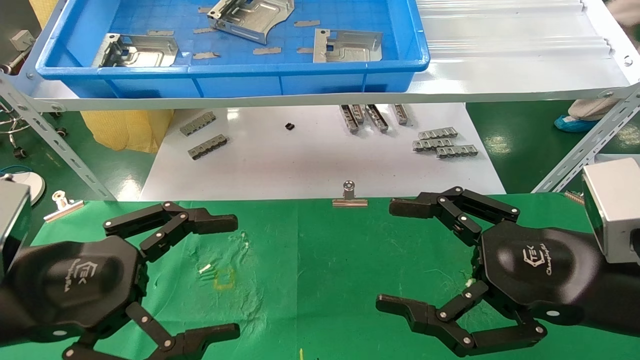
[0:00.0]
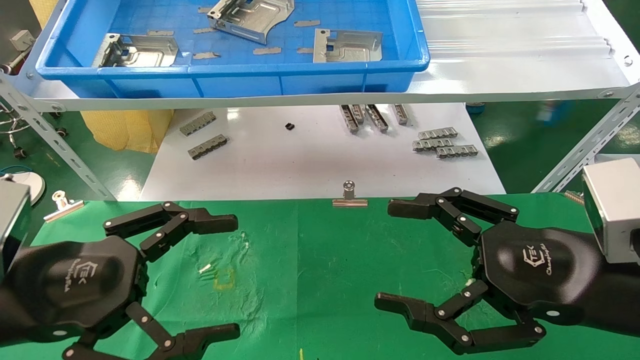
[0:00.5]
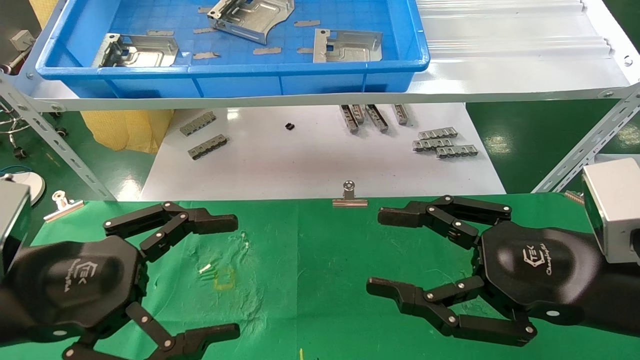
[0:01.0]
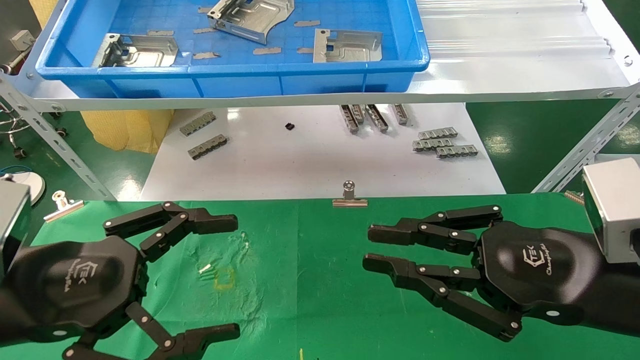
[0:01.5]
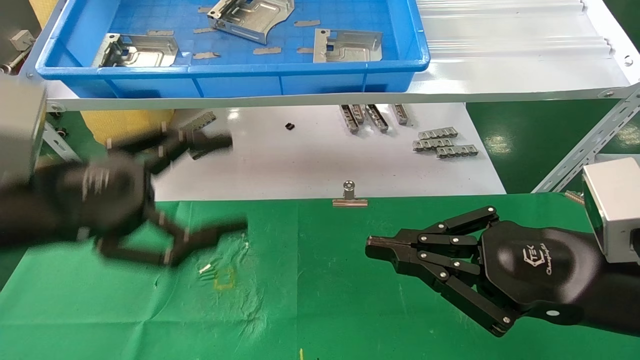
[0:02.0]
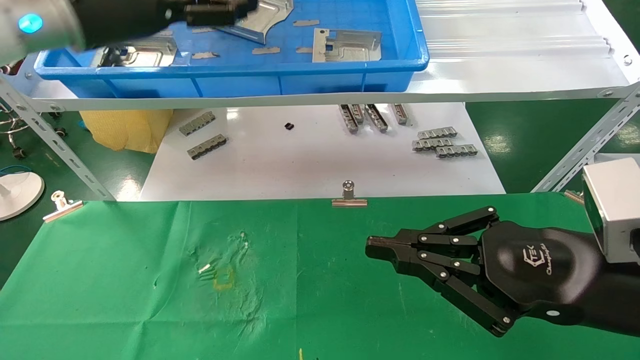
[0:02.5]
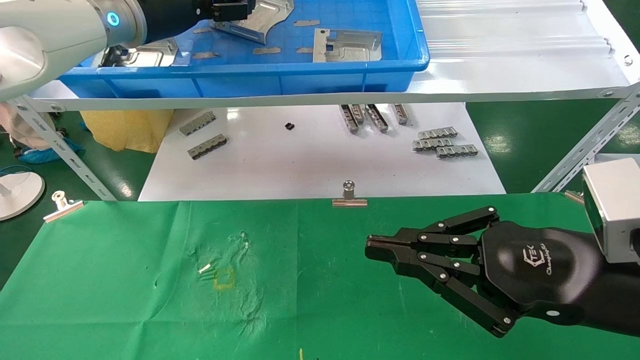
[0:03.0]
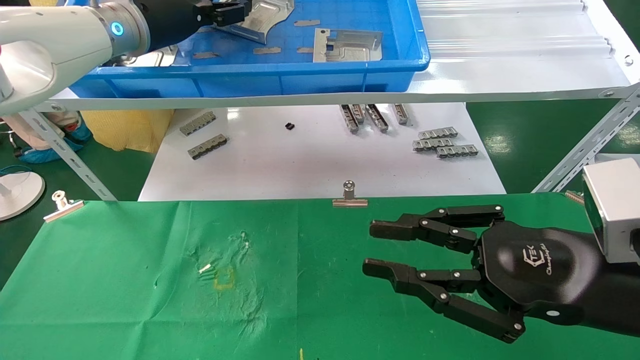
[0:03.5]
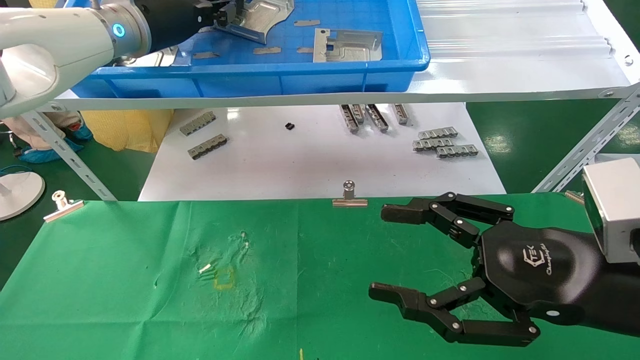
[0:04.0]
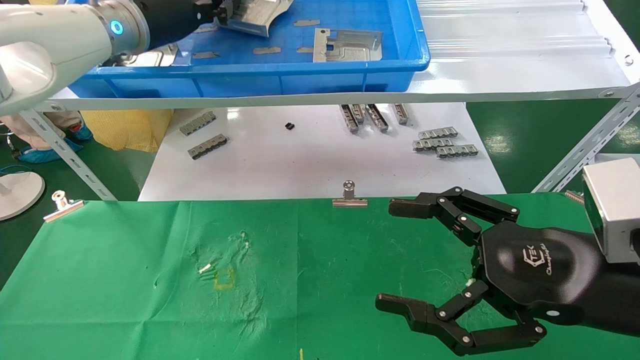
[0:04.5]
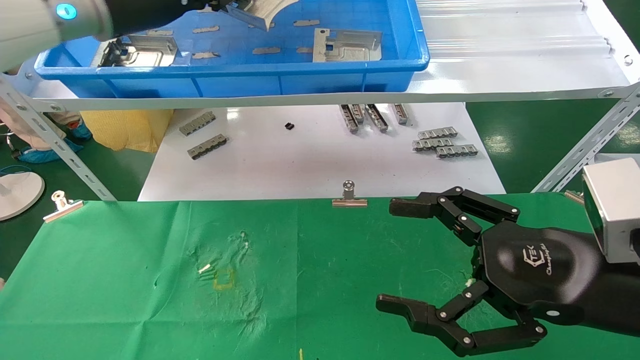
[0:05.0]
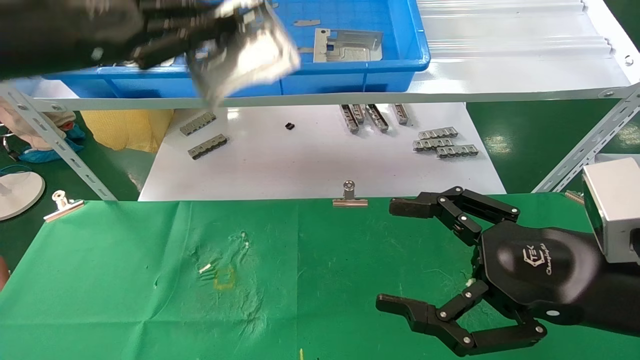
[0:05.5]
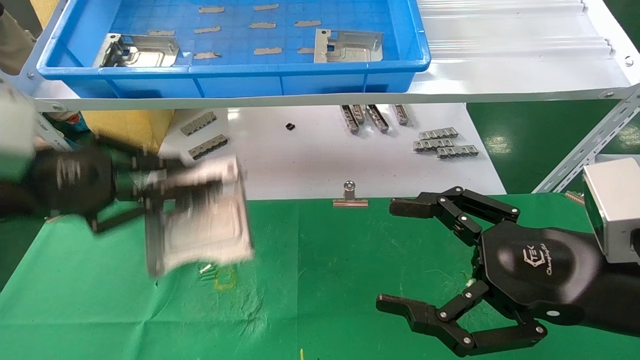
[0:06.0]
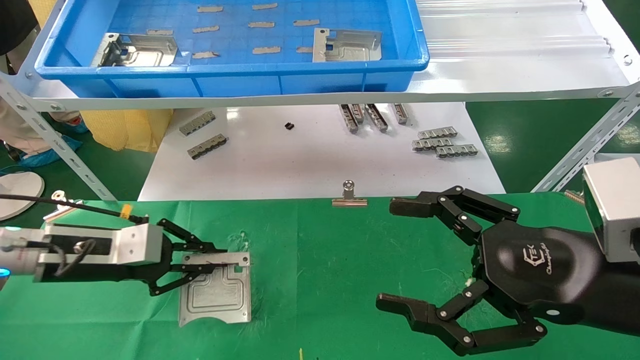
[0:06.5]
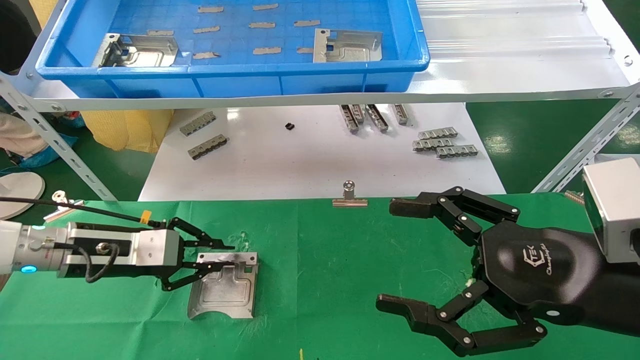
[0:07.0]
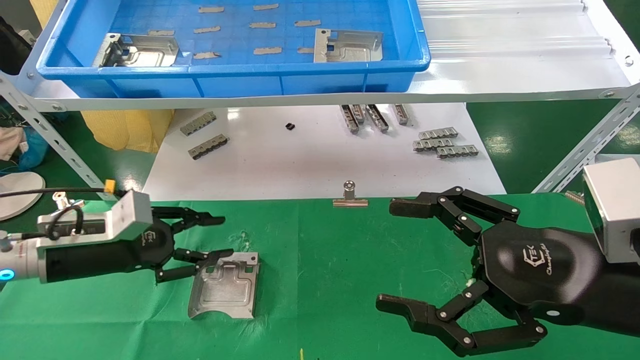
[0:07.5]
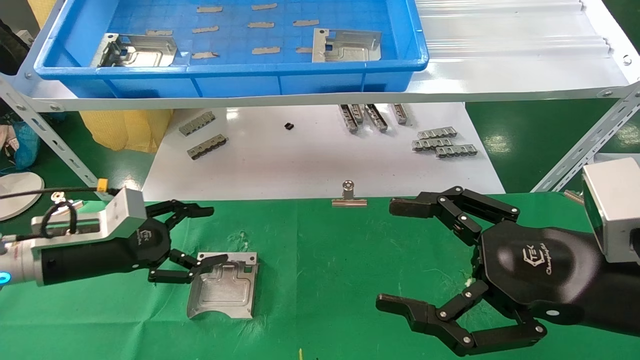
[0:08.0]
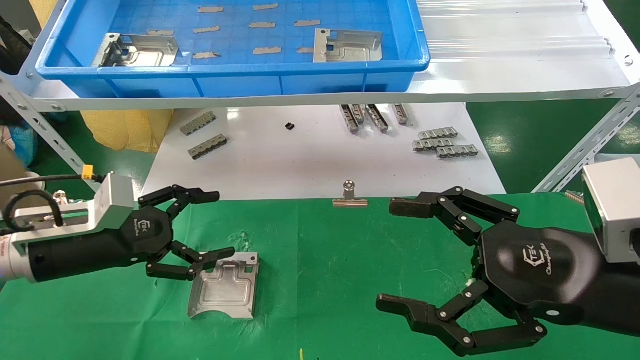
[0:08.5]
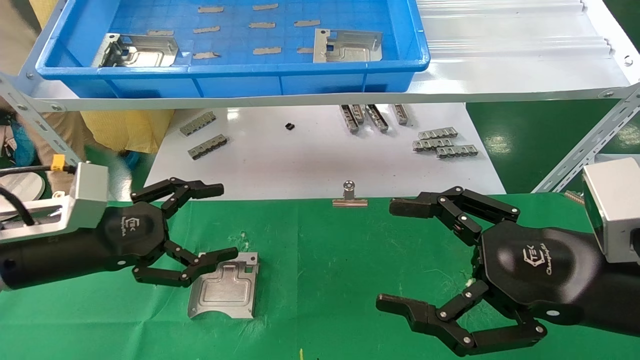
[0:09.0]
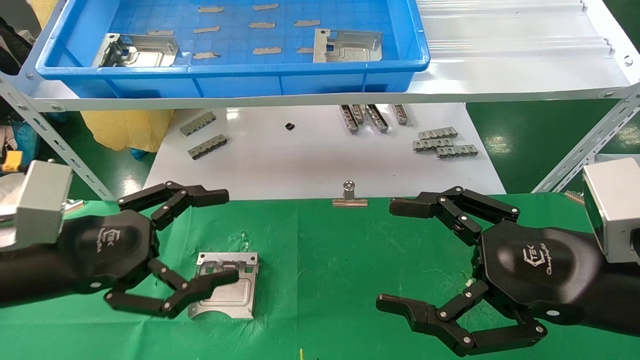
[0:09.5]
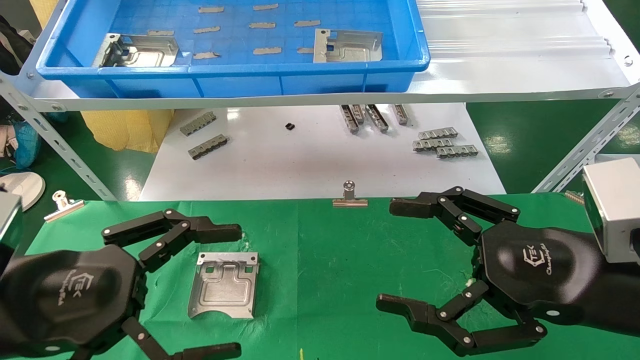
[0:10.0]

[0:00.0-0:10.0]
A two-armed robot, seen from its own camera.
Task of the whole recording: use the mechanical arm to pick up the parts and place them on the table.
Step, 0:02.0 to 0:04.0: Pick up the hard drive bracket from the feeding area.
Step, 0:04.5 to 0:07.5: Place the hard drive bracket into the box.
0:00.0 to 0:02.0: The right gripper closes its fingers. The left gripper moves upward and forward, about 10 cm.
0:02.0 to 0:04.0: The right gripper opens its fingers. The left gripper travels forward and upward by some 25 cm, and closes.
0:04.0 to 0:06.0: The left gripper shifts some 25 cm backward, downward and to the left. The right gripper opens up.
0:06.0 to 0:08.0: The left gripper shifts roughly 15 cm downward and forward, and opens its fingers.
0:08.0 to 0:10.0: The left gripper travels backward by about 15 cm.

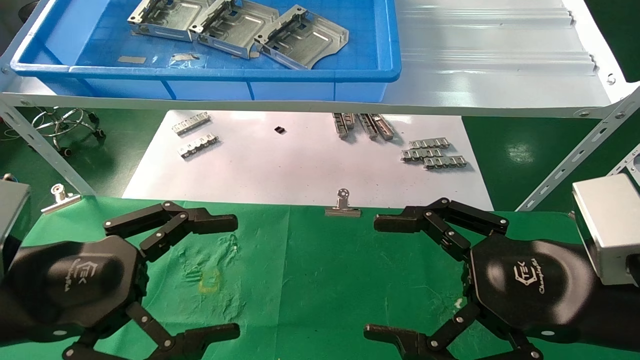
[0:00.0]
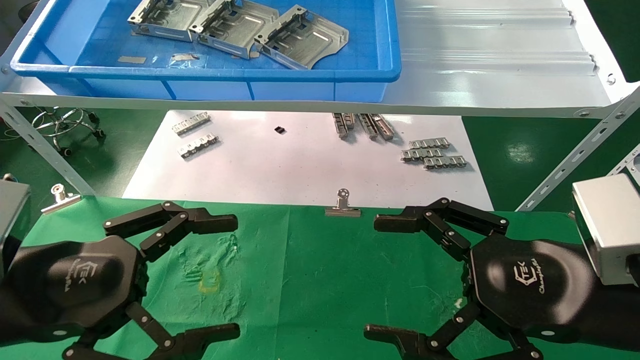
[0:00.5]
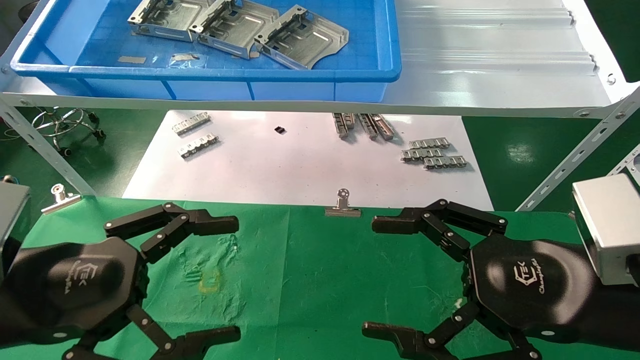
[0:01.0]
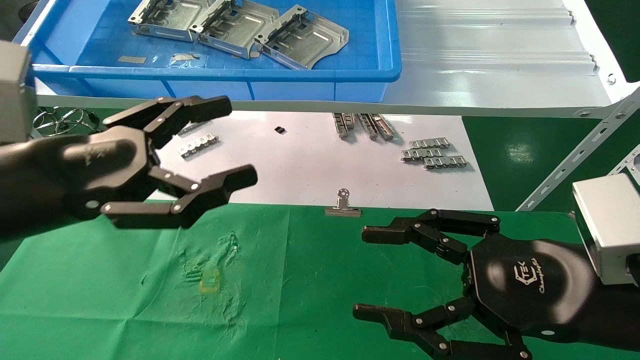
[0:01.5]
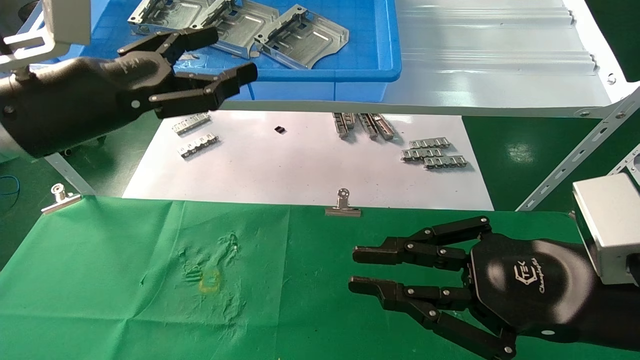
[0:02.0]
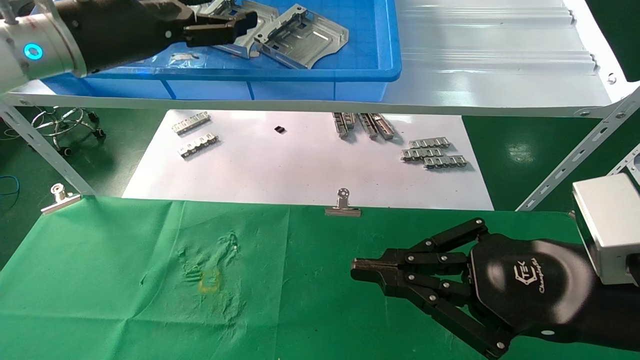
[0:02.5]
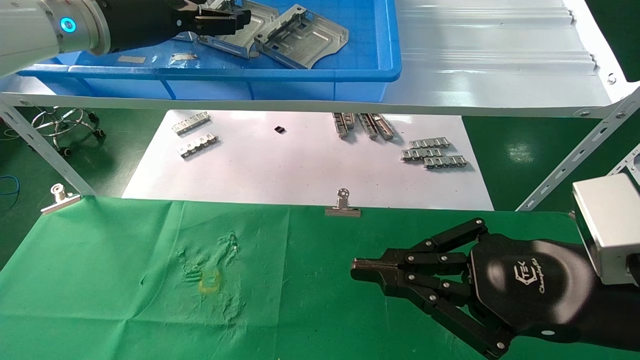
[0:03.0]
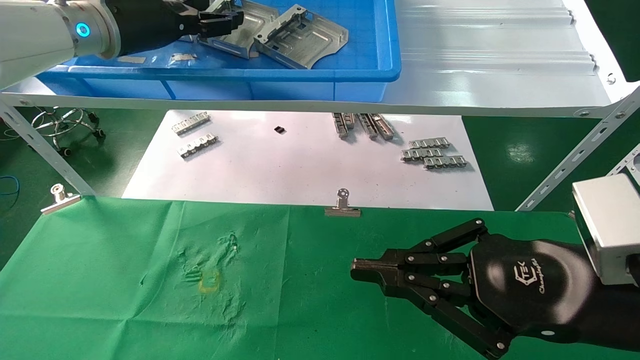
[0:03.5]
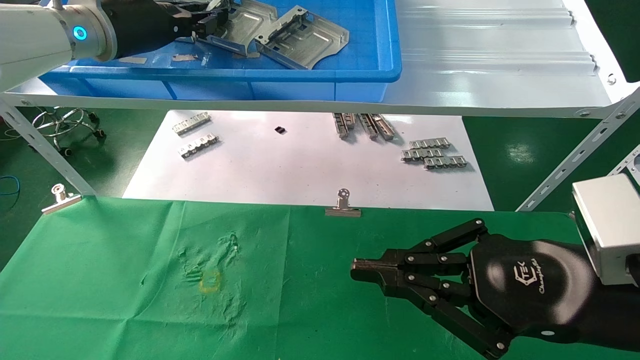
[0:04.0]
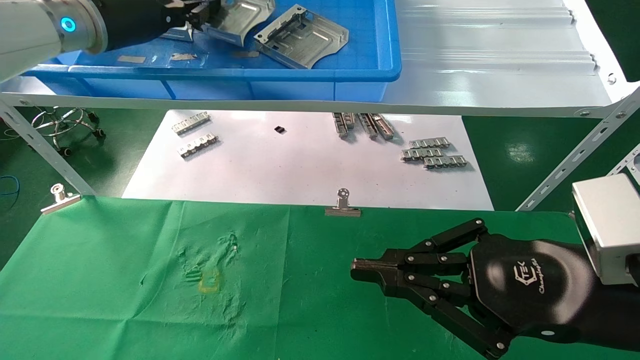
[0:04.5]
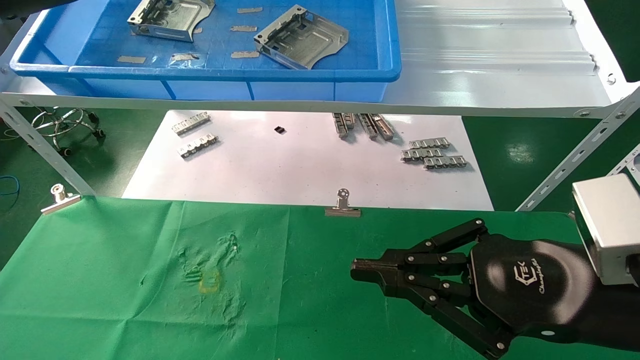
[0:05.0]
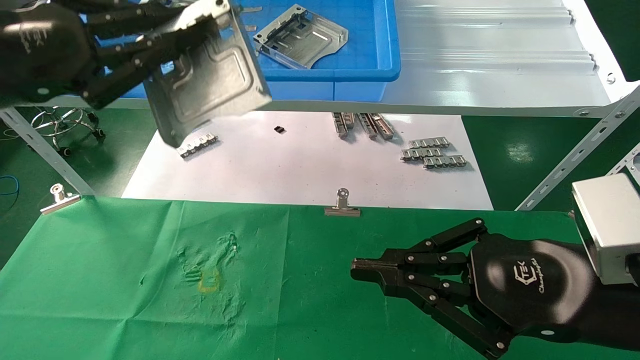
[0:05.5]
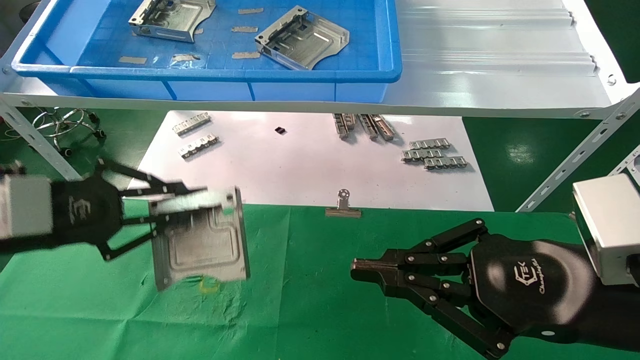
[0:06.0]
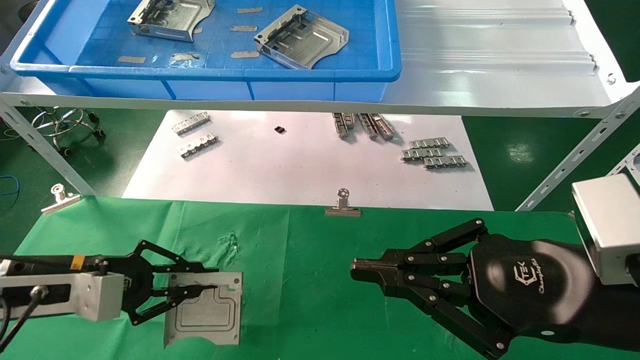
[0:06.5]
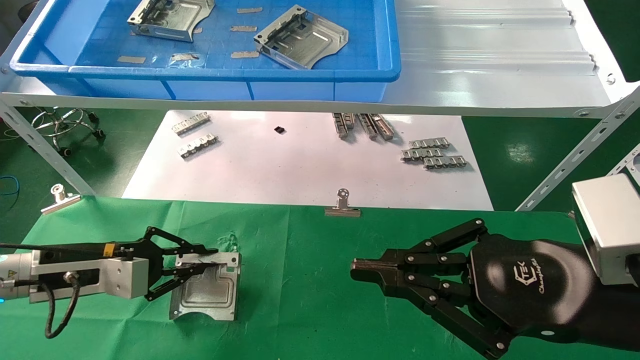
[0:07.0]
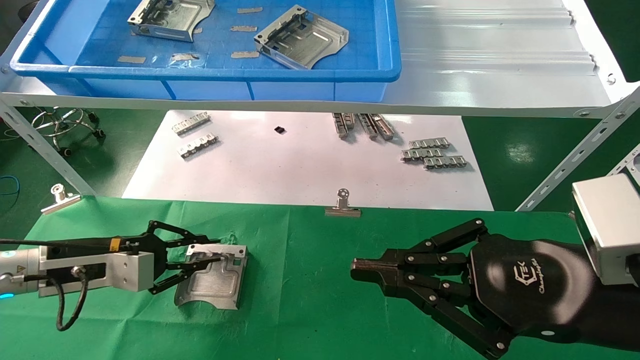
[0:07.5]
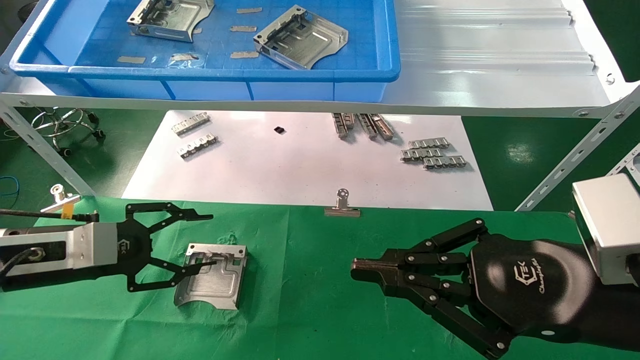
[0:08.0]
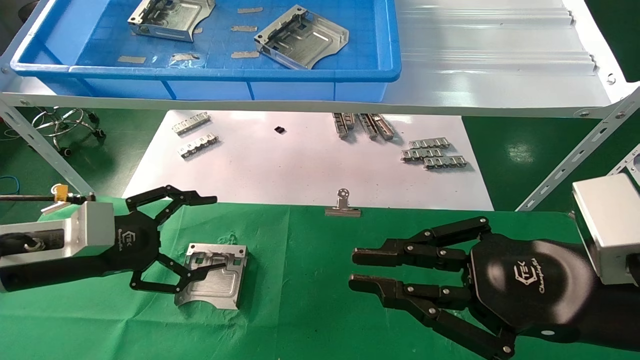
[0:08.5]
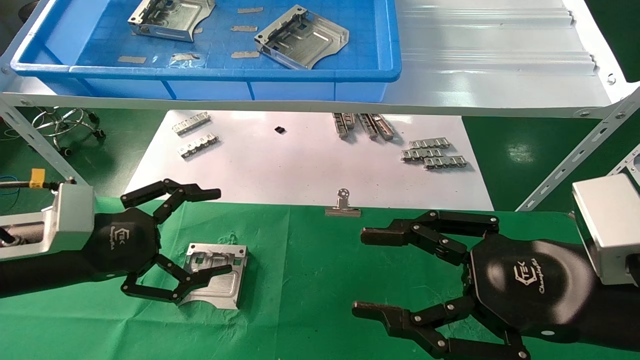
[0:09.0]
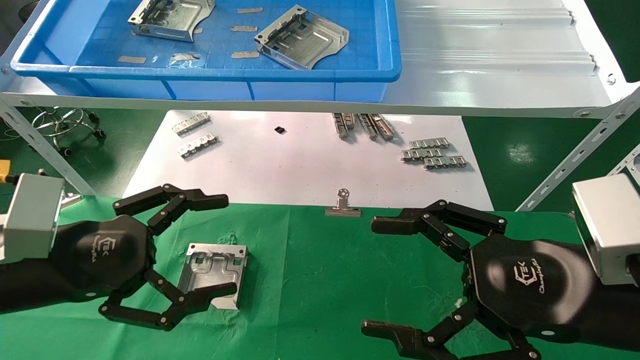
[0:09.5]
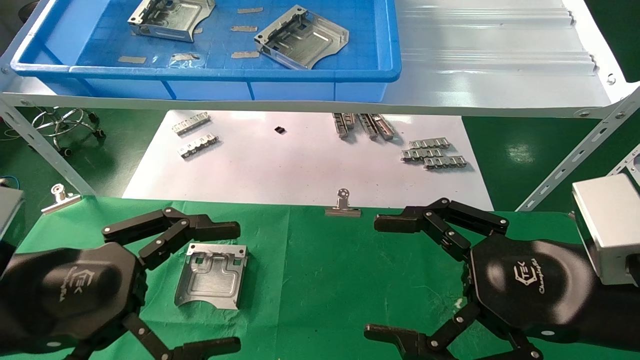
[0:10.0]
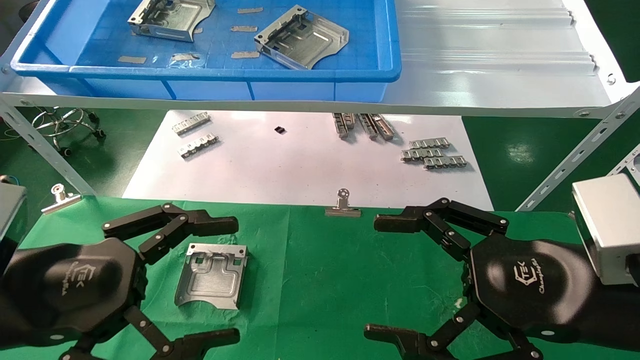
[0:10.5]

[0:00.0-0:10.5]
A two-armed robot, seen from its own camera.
Task of the whole recording: use the mechanical arm to pick up the parts and place them on the table.
Step, 0:01.5 to 0:04.0: Pick up the hard drive bracket from the feeding area.
Step, 0:04.5 to 0:07.5: Place the hard drive bracket into the box.
0:00.0 to 0:02.0: The right gripper closes up; the left gripper shifts approximately 15 cm upward and forward.
0:02.0 to 0:04.0: The left gripper goes roughly 15 cm forward and upward, and closes its fingers.
0:04.0 to 0:06.5: The left gripper is displaced downward and backward by some 30 cm.
0:06.5 to 0:08.5: The left gripper opens its fingers.
0:08.5 to 0:10.5: The left gripper heads backward and to the right, covering about 15 cm; the right gripper opens.
